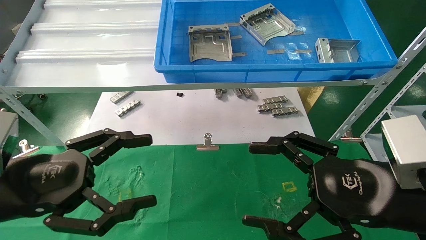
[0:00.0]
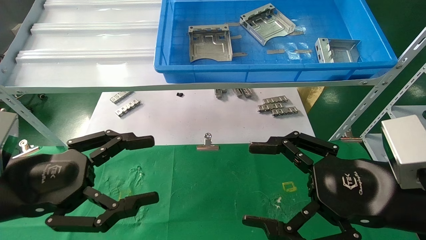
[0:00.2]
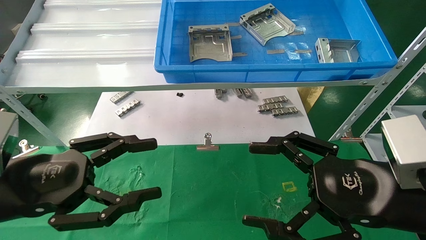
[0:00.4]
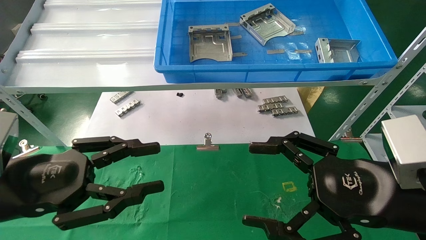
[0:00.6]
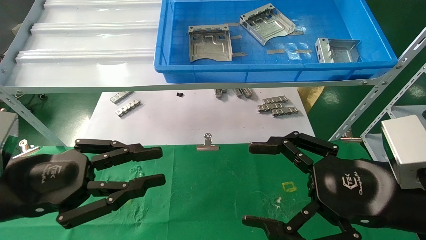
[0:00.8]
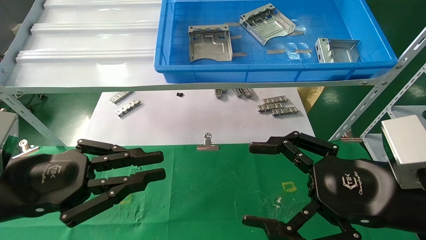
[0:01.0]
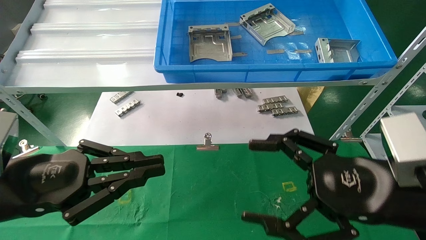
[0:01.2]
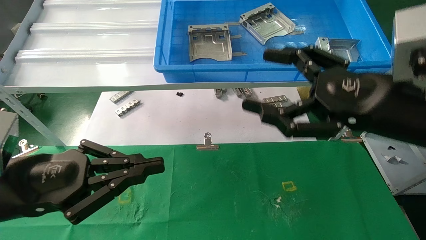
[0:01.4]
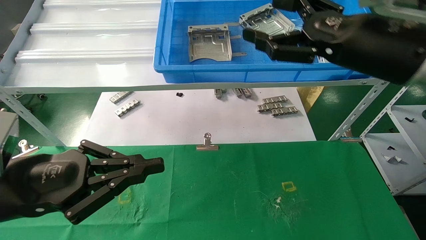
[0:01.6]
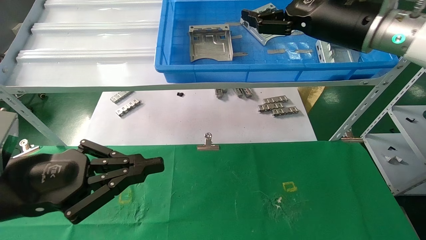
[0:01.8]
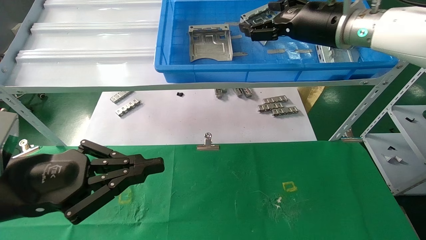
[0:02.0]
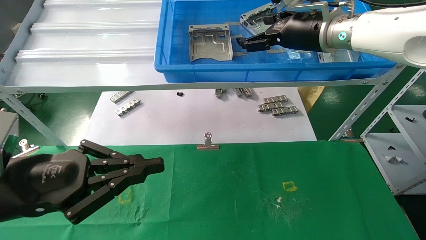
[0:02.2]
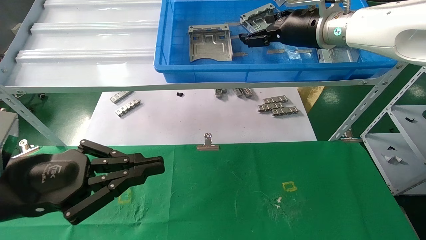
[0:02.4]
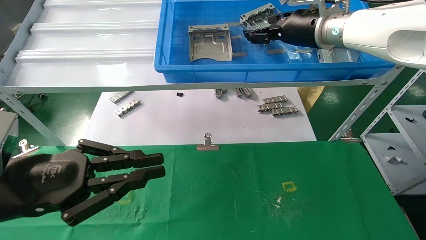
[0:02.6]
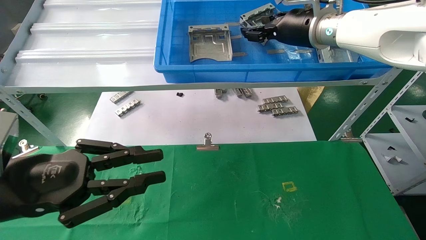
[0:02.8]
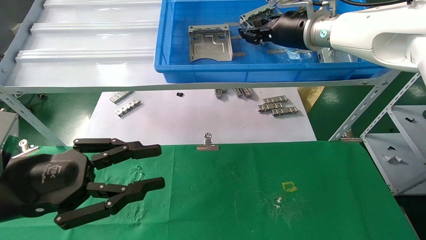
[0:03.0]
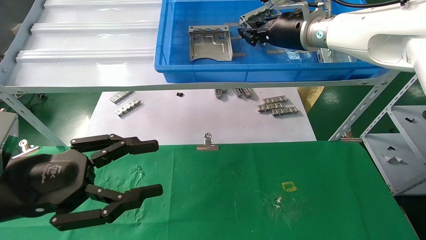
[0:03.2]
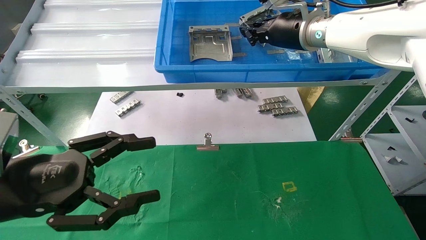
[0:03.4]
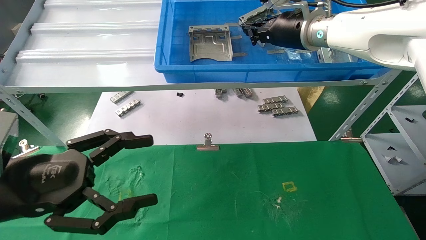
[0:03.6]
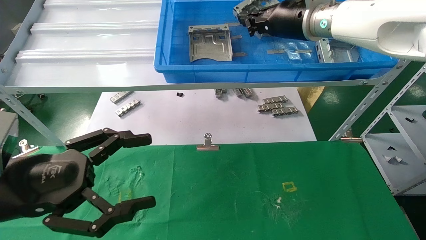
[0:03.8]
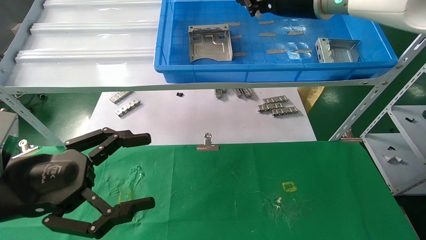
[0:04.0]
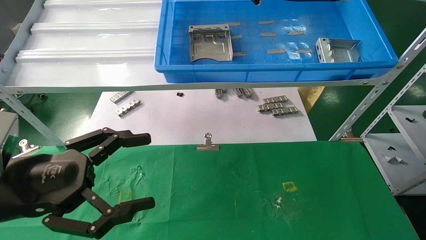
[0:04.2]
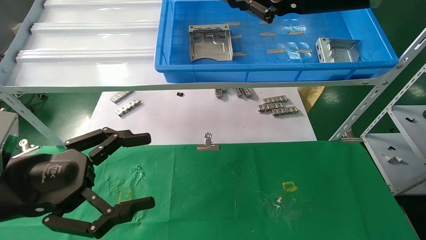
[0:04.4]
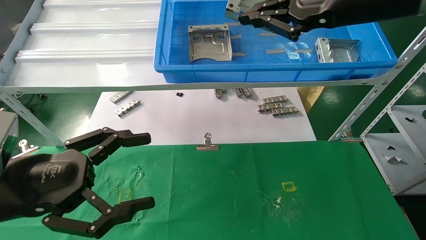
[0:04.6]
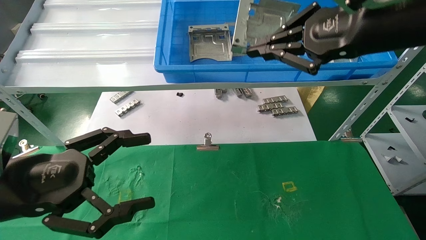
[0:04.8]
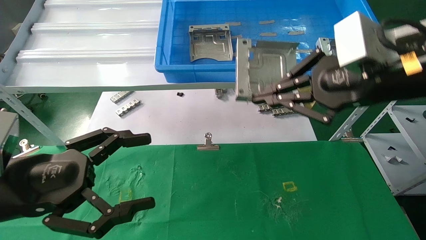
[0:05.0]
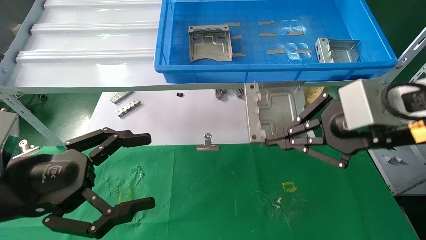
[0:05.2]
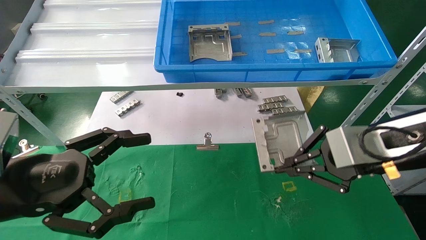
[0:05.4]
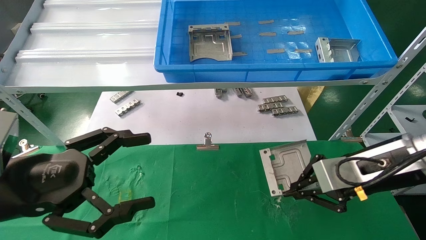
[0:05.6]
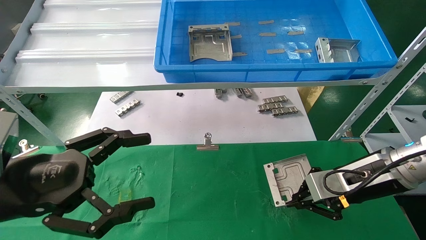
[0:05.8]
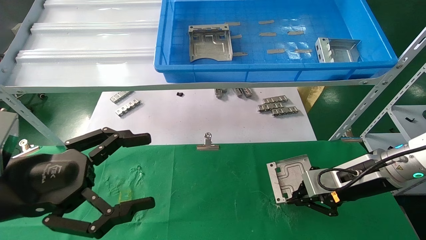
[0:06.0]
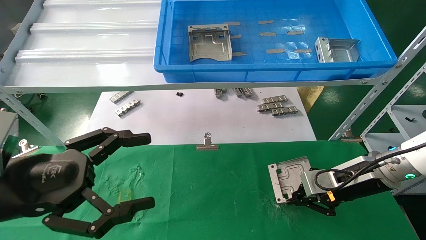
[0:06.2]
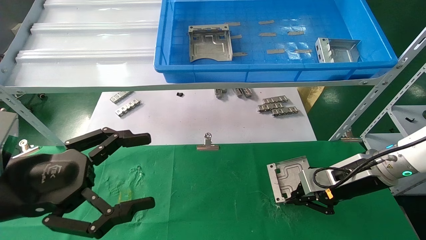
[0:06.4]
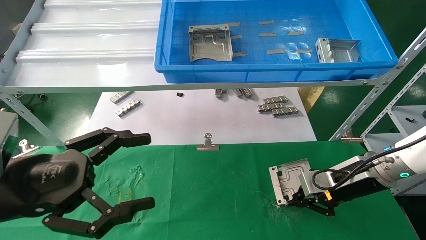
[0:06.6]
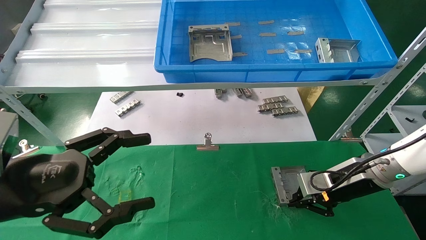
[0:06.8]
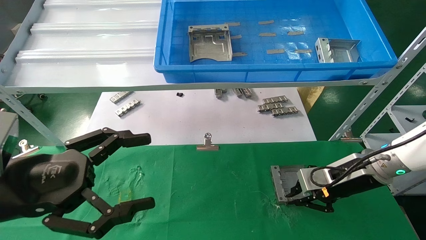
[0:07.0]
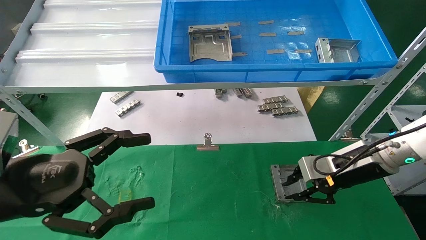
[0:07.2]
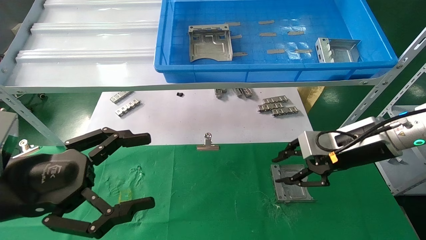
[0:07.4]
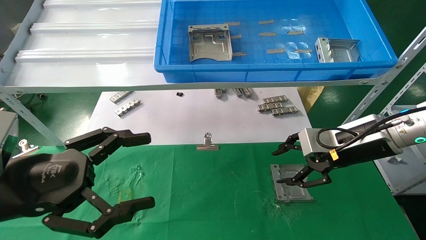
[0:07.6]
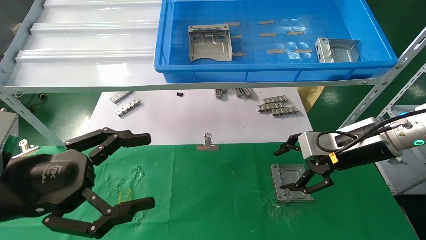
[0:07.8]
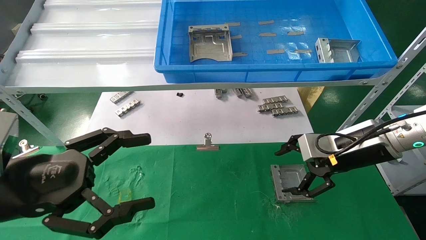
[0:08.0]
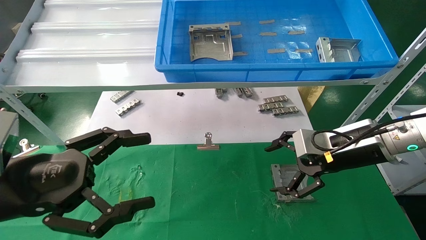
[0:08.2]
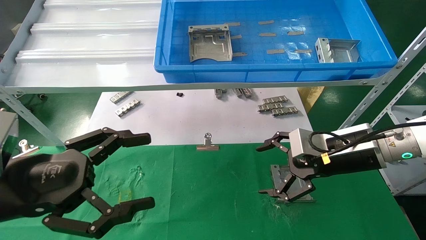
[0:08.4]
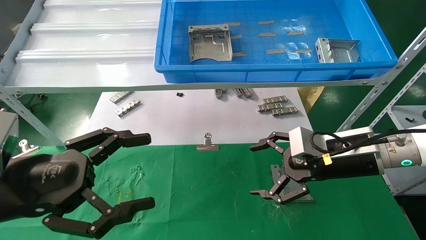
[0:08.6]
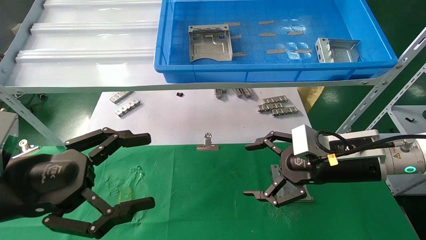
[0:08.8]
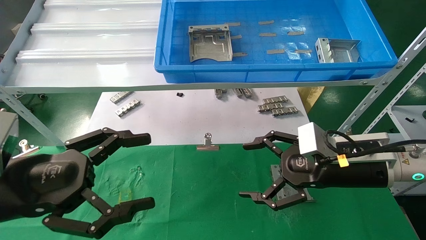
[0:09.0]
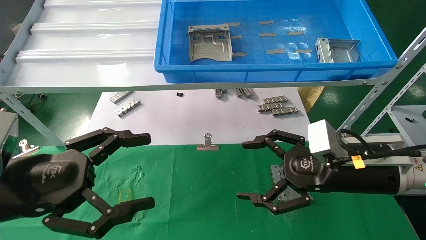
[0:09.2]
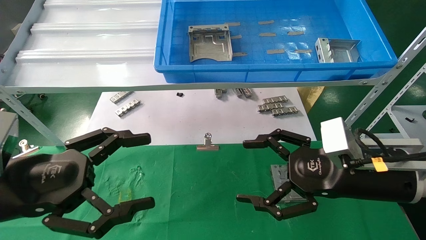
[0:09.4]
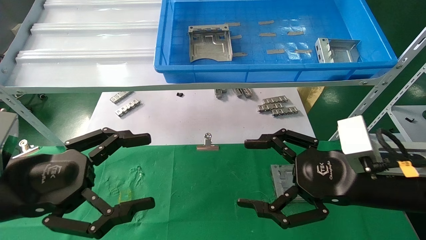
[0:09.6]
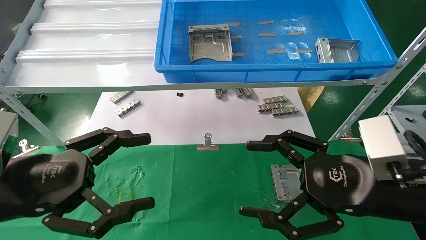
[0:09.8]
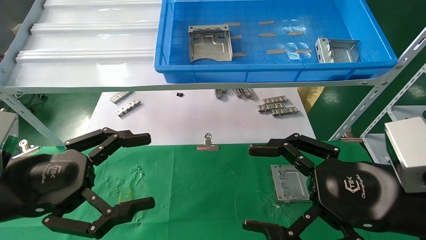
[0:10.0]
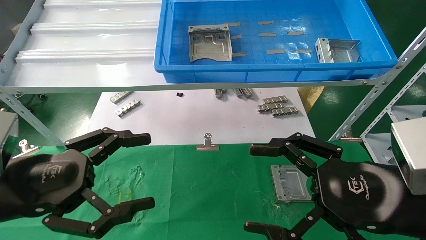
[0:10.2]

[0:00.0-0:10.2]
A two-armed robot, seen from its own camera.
Task of the whole recording: use the mechanical arm to pick up the parts and place them on the table.
Step, 0:01.6 to 0:04.2: Pick up the hard drive bracket from the feeding area.
Step, 0:04.4 to 0:07.4: Place the hard drive bracket into the box.
0:00.0 to 0:01.4: The right gripper shifts approximately 10 cm upward and forward, while the left gripper closes its fingers.
0:01.4 to 0:03.0: The right gripper heads forward and upward, covering roughly 20 cm, and closes up.
0:03.0 to 0:04.4: The left gripper opens up, while the right gripper travels backward and upward by some 15 cm, and closes.
0:04.4 to 0:05.8: The right gripper shifts roughly 25 cm downward.
0:07.2 to 0:08.8: The right gripper moves roughly 5 cm, and opens.
0:08.8 to 0:10.2: The right gripper goes approximately 15 cm backward.
